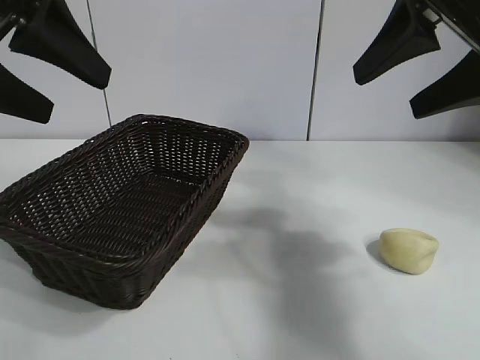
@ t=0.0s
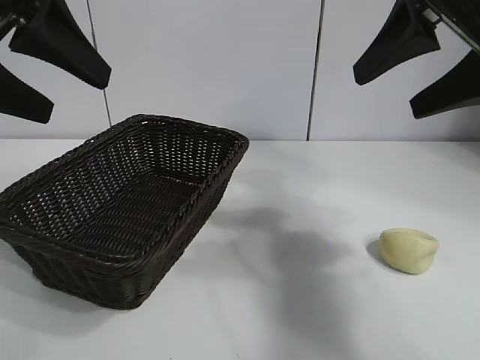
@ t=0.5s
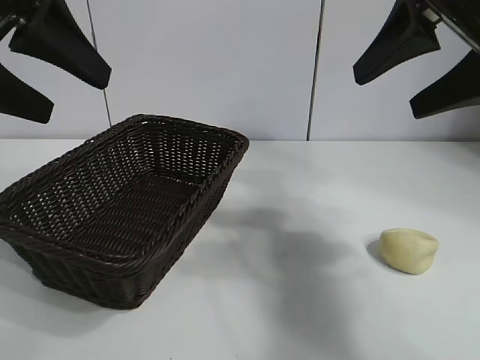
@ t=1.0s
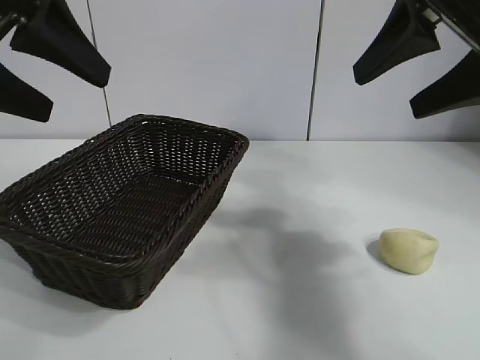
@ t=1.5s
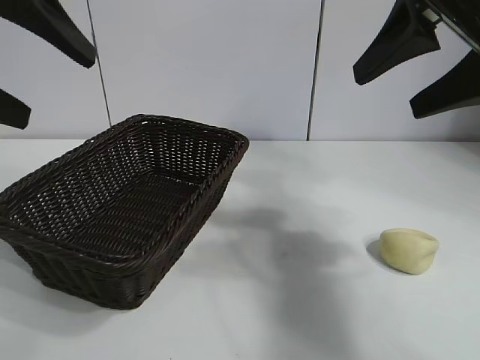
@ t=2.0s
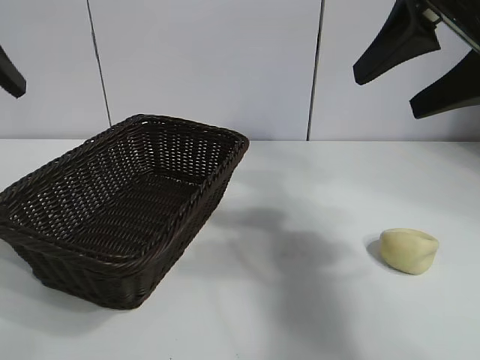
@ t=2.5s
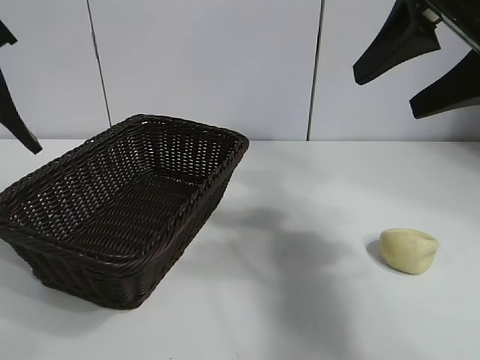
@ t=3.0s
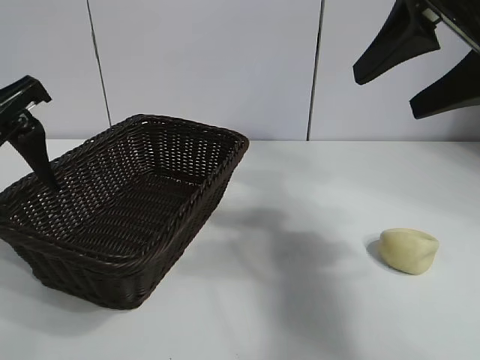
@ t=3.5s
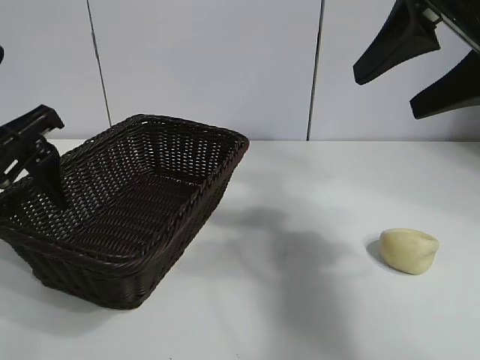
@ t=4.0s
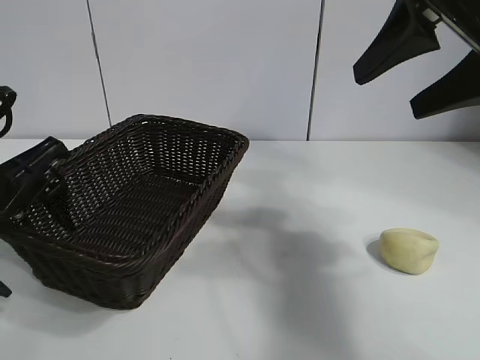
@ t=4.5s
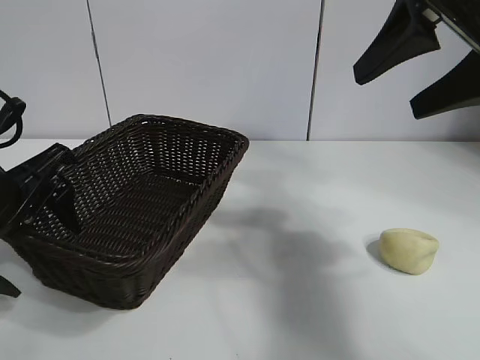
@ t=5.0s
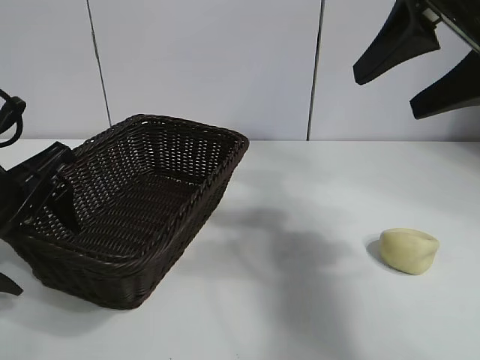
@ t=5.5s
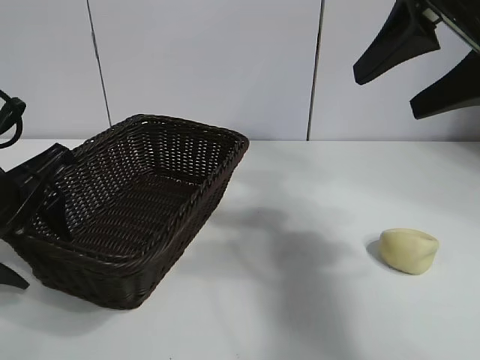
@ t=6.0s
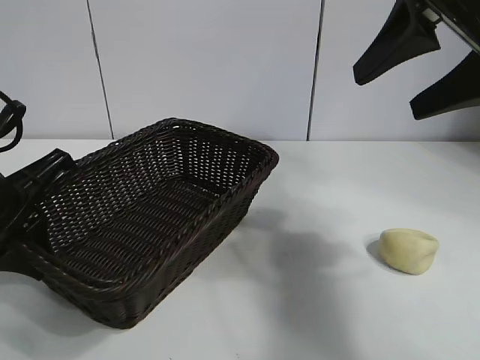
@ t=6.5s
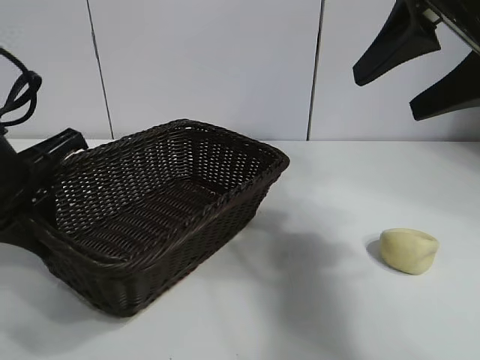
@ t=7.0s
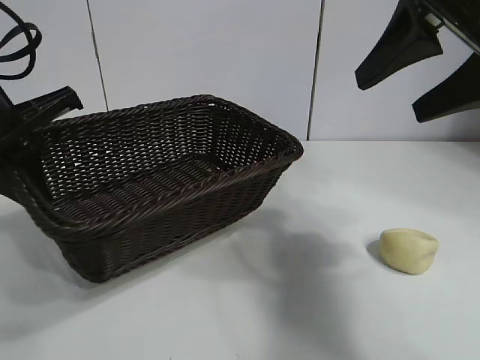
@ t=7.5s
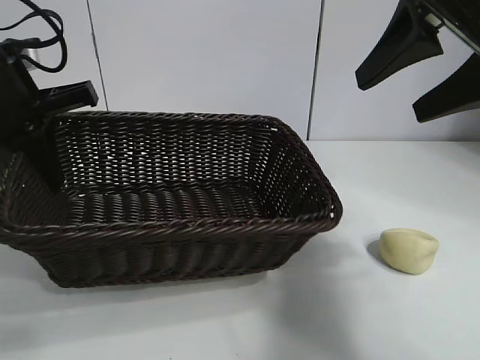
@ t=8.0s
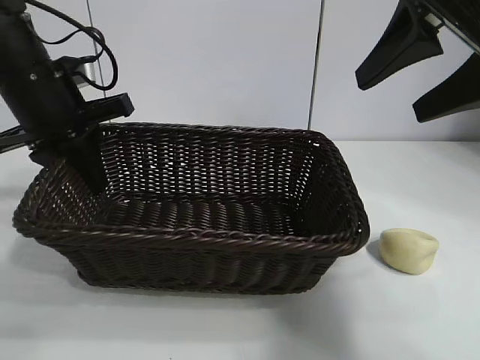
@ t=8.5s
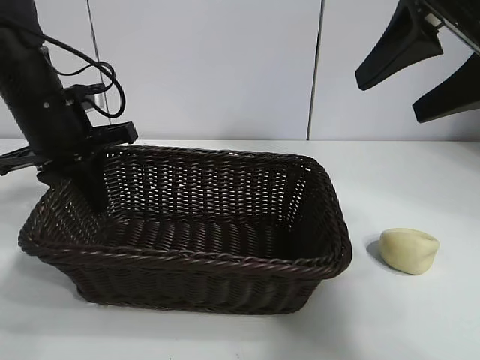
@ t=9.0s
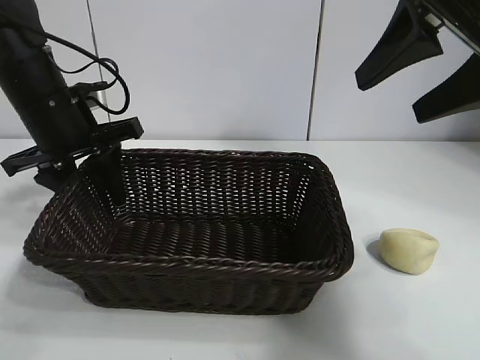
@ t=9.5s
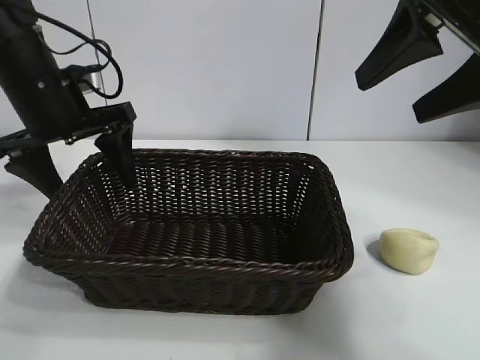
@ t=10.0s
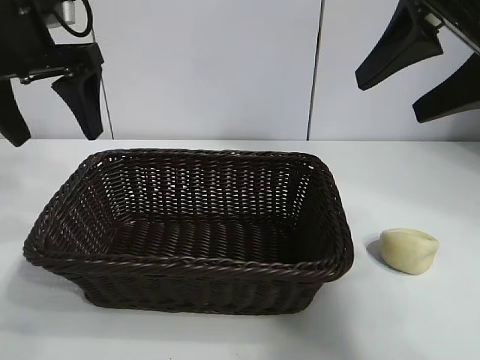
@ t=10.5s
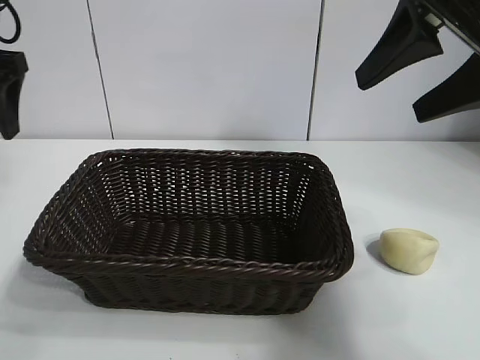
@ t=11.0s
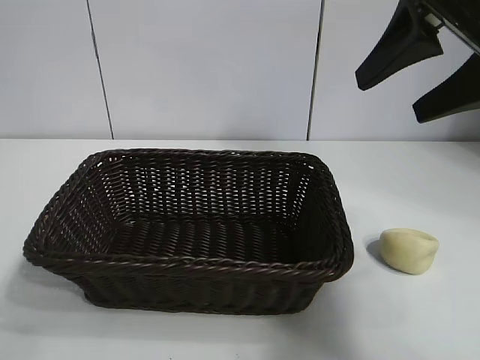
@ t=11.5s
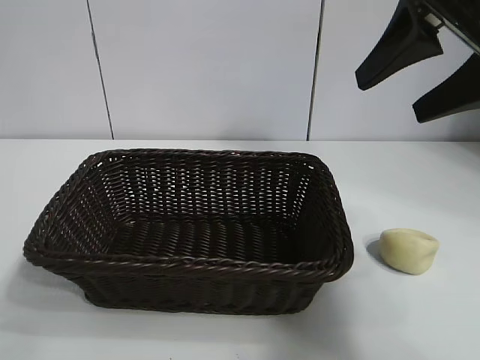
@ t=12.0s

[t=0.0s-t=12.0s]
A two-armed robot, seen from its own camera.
Task of the whole recording: pick up the egg yolk pastry and put it into the basket.
Step, t=1.5s to t=6.0s: Grasp the basket with left gripper.
Step, t=6.5s to t=9.5s: Place the basket in the center of view with left gripper.

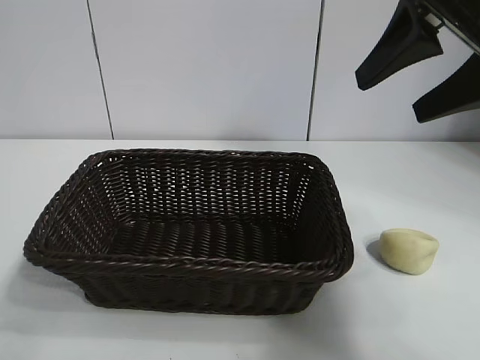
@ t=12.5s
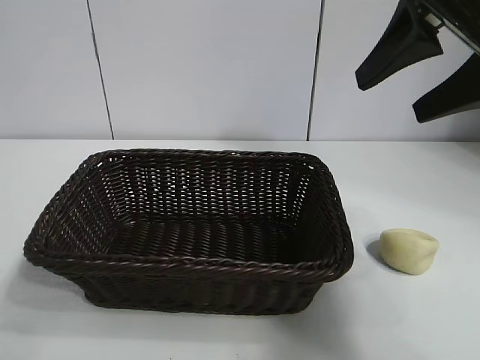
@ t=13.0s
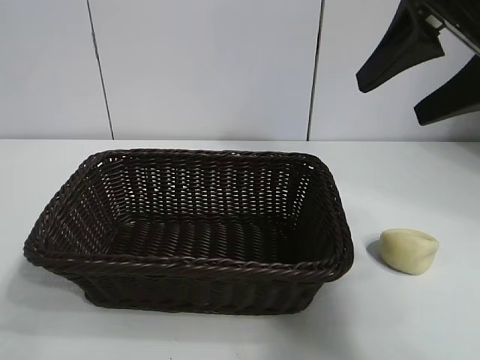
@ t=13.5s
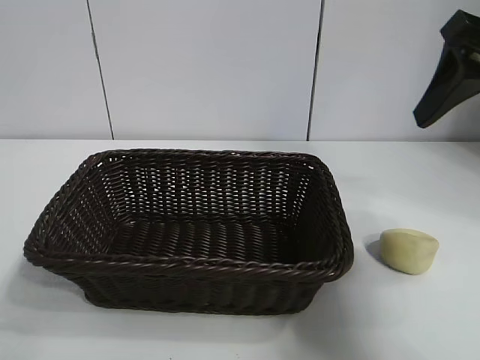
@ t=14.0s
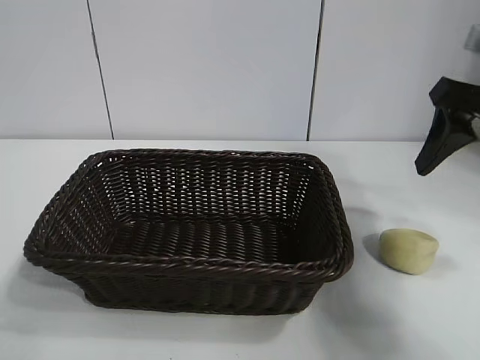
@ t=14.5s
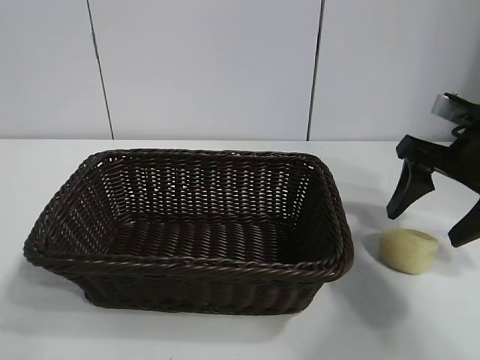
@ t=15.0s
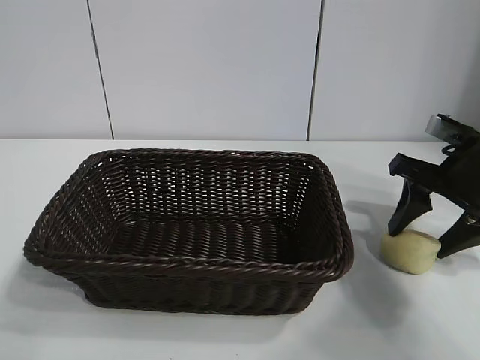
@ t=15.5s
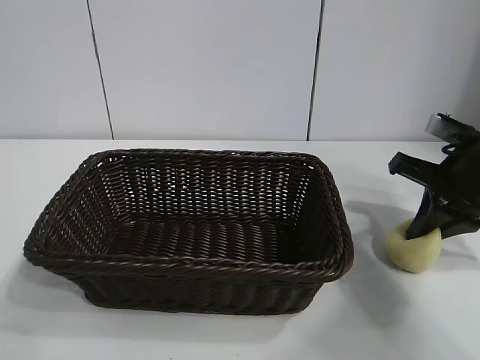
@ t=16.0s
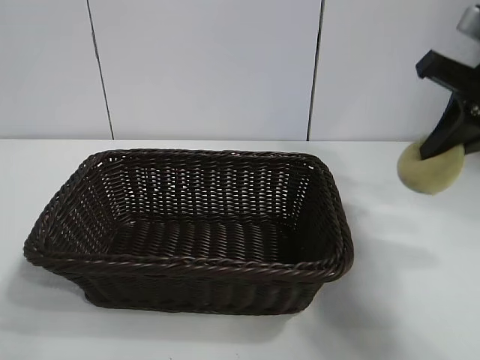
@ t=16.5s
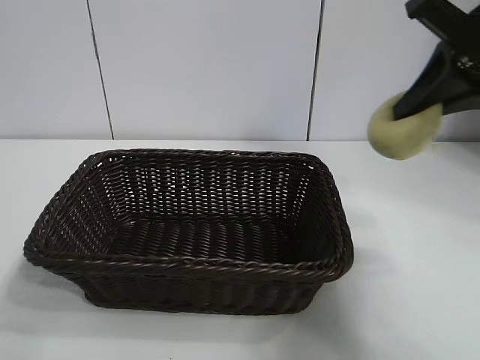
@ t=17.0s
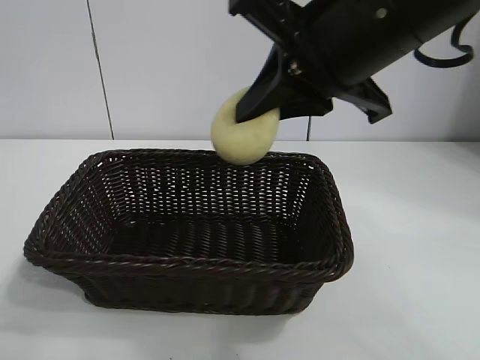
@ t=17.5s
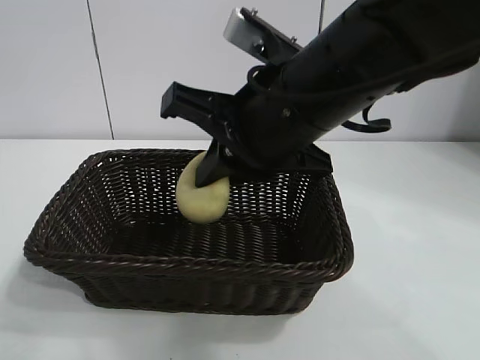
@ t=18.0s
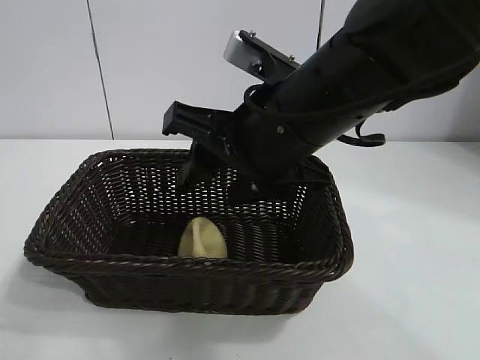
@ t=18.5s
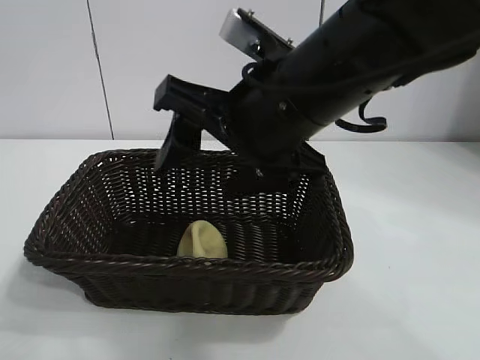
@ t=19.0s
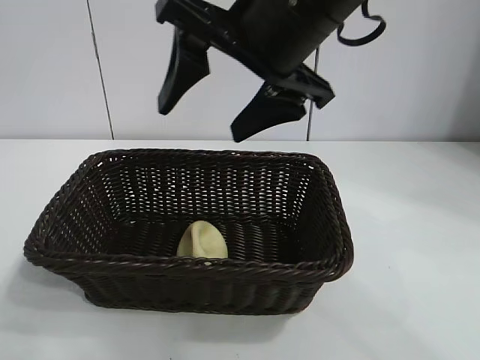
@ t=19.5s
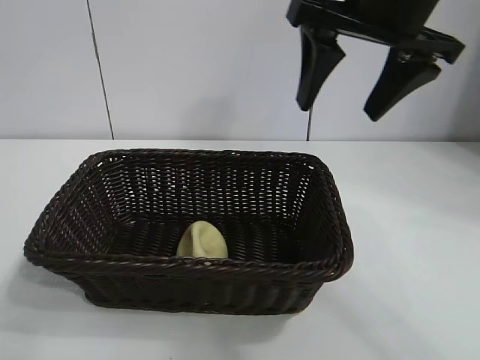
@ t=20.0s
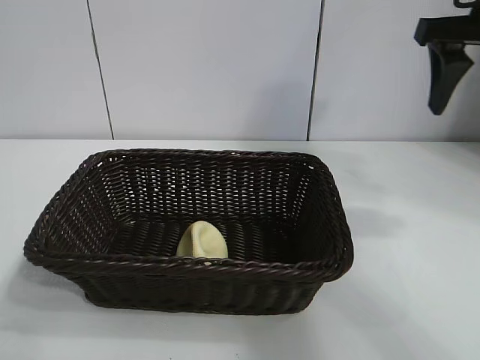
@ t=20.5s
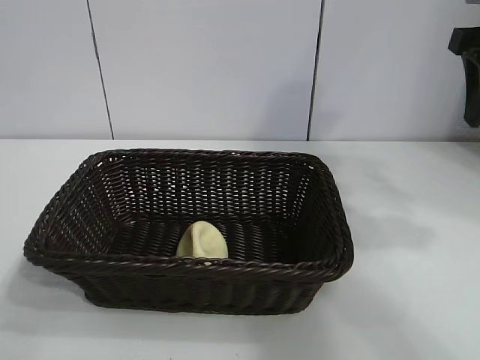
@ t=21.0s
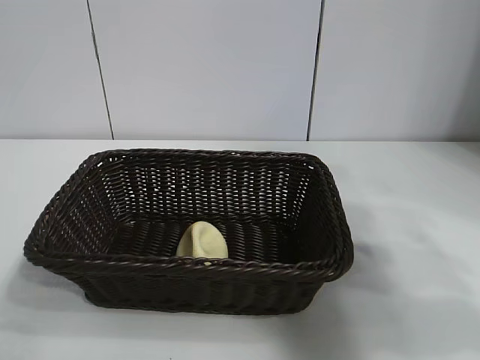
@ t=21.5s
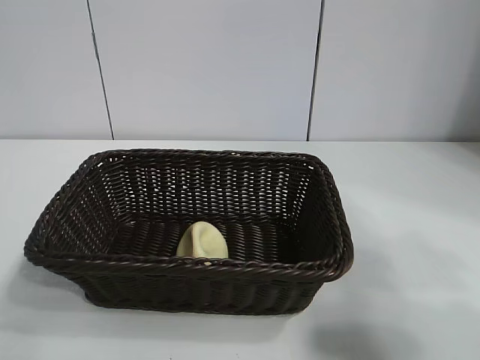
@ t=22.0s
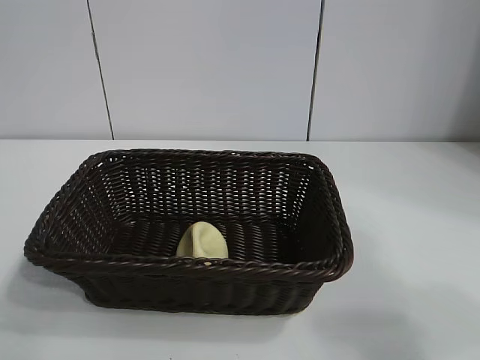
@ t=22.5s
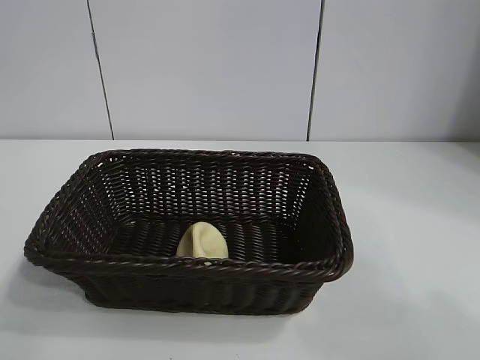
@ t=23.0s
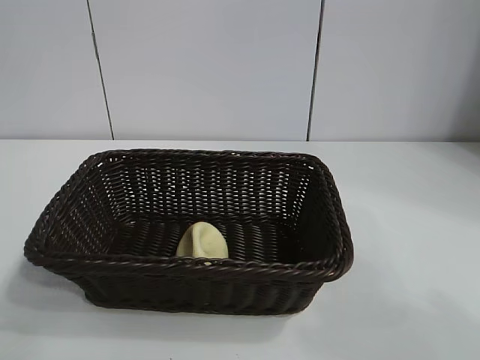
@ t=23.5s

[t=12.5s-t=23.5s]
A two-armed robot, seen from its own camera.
Task of the whole recording: pick up the egg yolk pastry and put it into the basket.
Step, t=12.5s to t=16.0s: Grasp egg yolk pastry with right gripper.
Step, t=16.5s to t=18.5s: Place the egg yolk pastry in the basket with right gripper.
